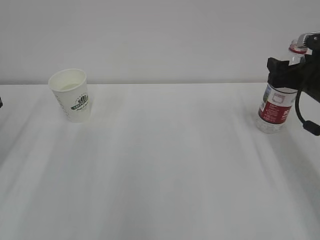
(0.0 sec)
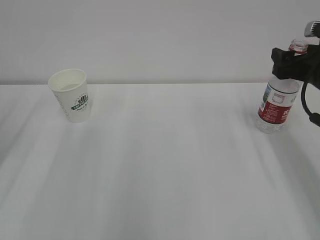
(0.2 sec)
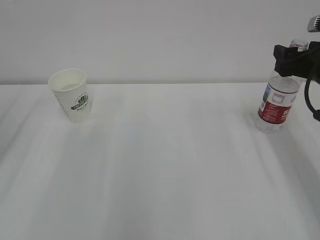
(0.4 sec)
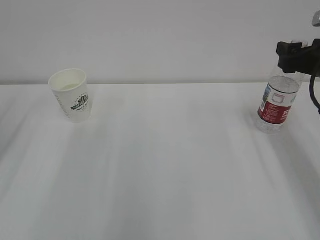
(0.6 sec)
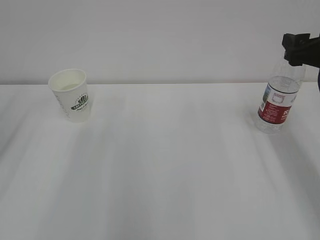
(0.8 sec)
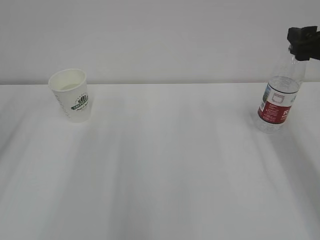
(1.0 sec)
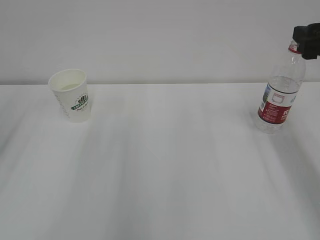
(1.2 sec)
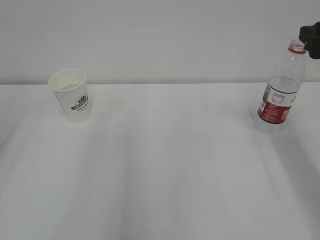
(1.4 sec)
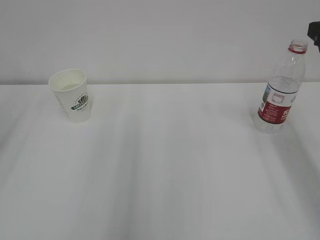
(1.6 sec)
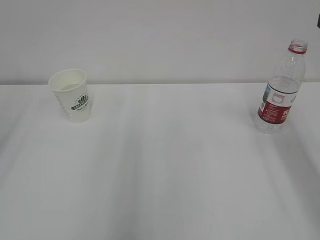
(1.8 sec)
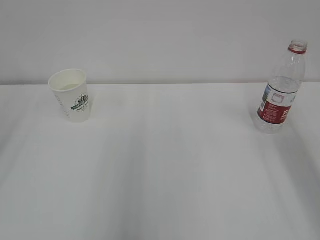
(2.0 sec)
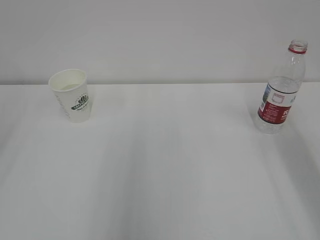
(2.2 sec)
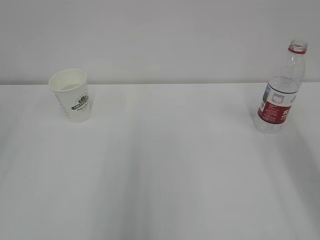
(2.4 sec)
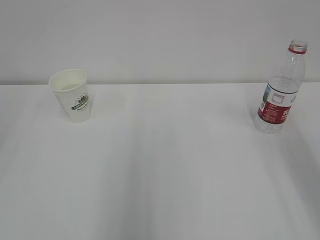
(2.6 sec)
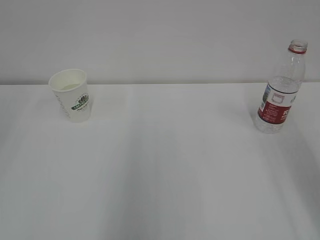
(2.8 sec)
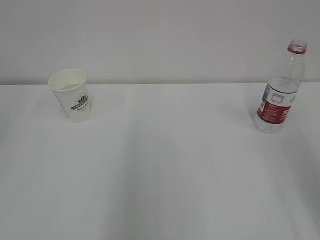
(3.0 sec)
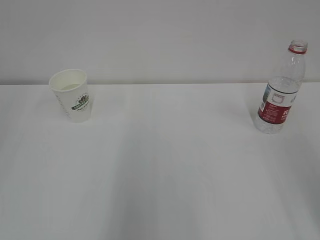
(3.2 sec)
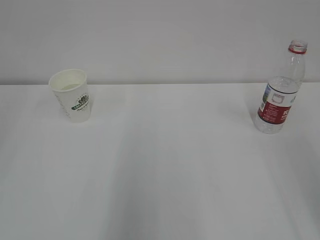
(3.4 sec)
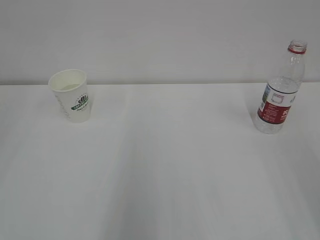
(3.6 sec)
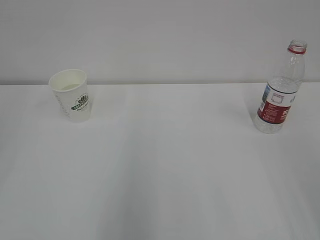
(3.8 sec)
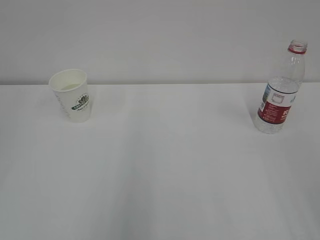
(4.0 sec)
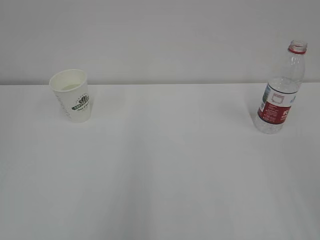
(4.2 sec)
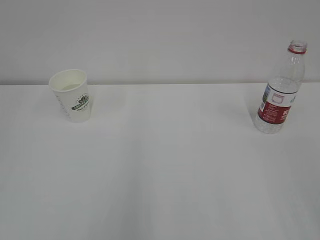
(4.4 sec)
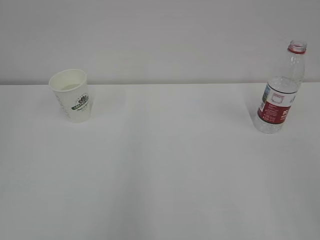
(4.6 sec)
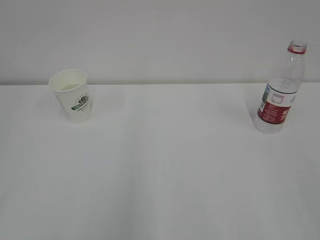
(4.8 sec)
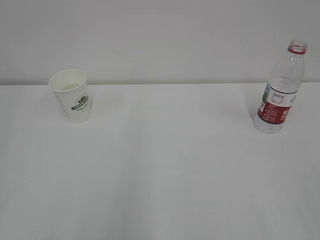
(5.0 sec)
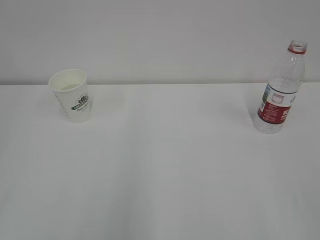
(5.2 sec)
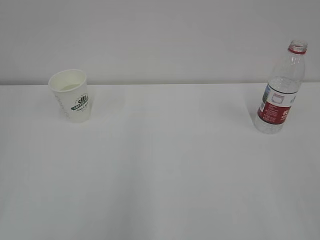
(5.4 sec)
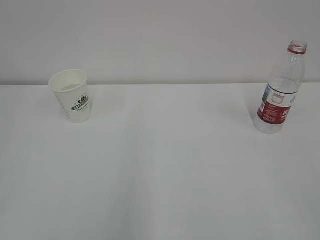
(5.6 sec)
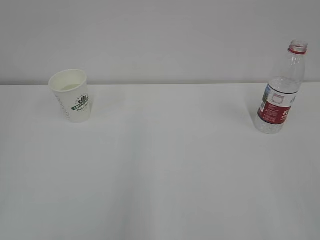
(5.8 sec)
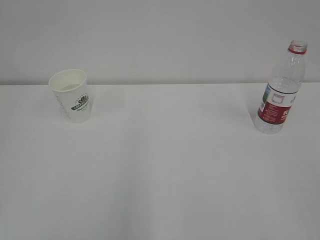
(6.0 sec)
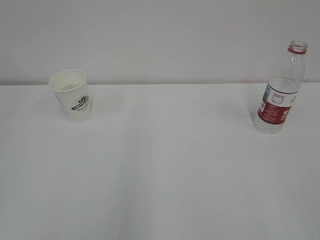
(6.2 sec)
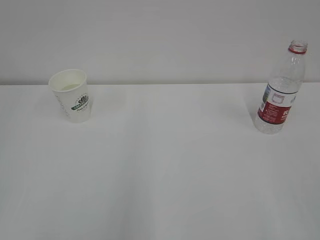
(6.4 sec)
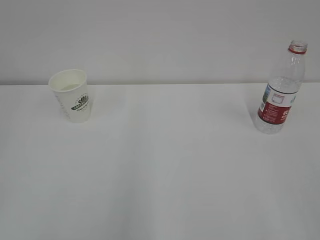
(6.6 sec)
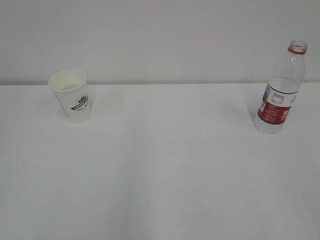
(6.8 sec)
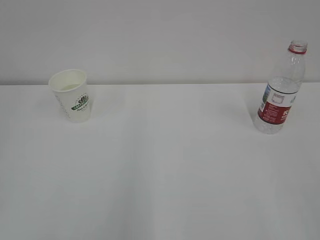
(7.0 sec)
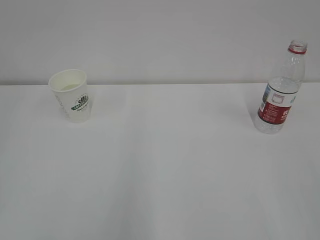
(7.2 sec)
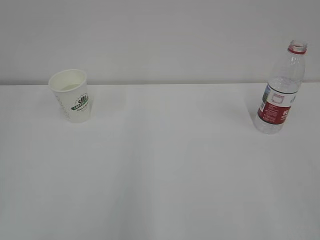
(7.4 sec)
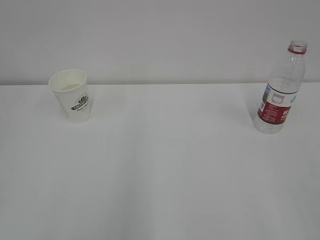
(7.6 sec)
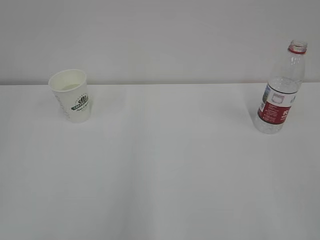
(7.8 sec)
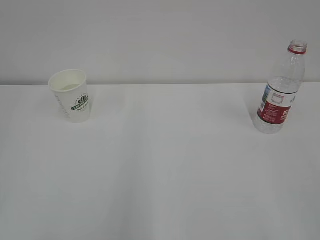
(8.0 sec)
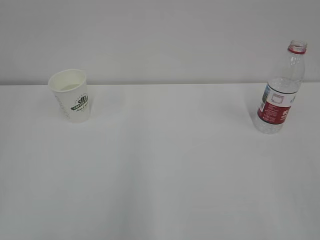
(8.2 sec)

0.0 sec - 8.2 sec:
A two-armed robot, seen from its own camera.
0.0 sec - 1.6 sec: The right gripper moves upward and backward, about 15 cm.
6.6 sec - 8.2 sec: The two grippers keep their place.
